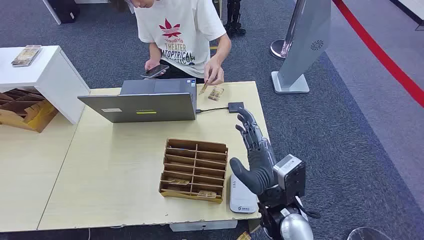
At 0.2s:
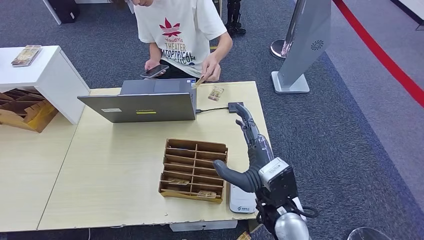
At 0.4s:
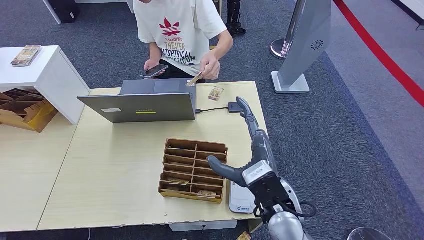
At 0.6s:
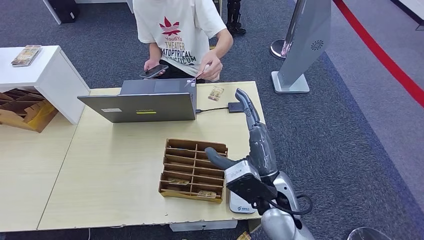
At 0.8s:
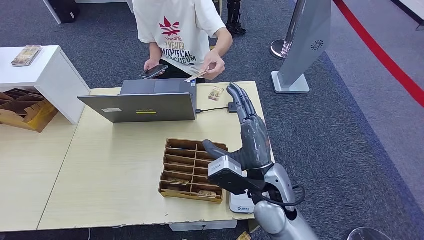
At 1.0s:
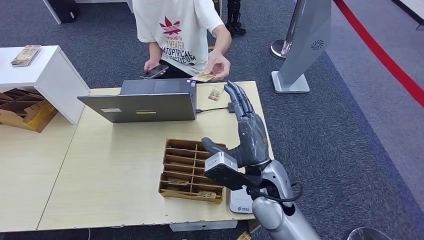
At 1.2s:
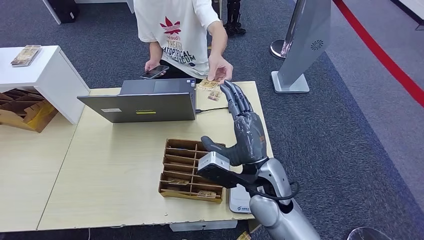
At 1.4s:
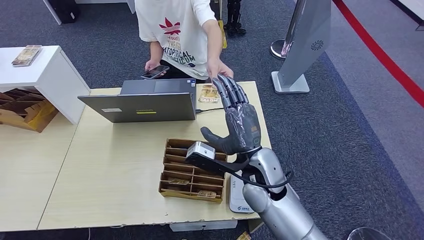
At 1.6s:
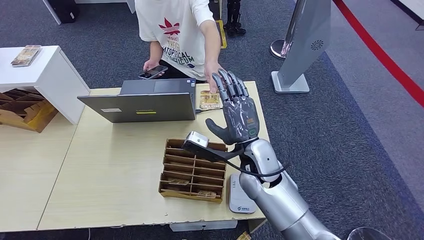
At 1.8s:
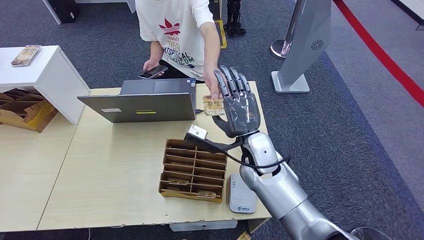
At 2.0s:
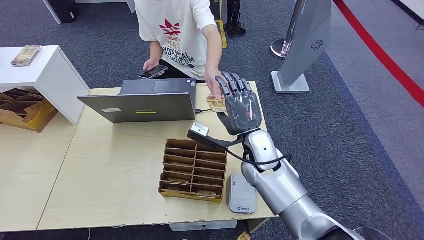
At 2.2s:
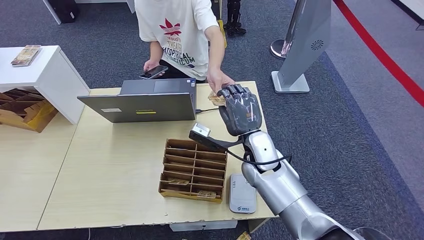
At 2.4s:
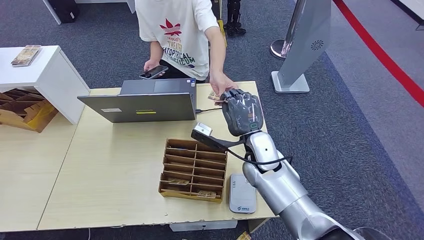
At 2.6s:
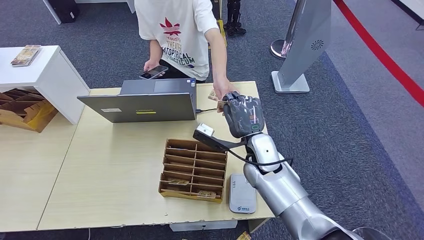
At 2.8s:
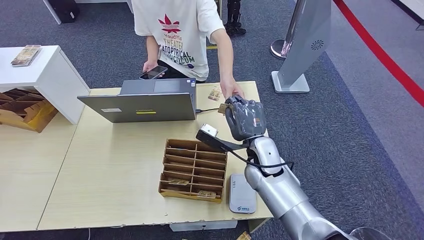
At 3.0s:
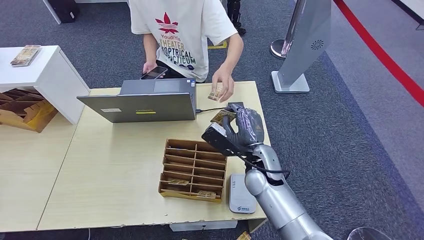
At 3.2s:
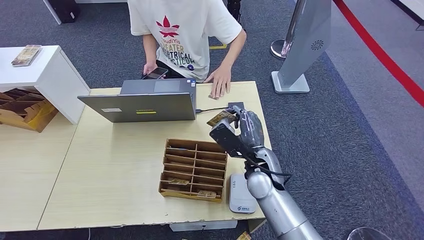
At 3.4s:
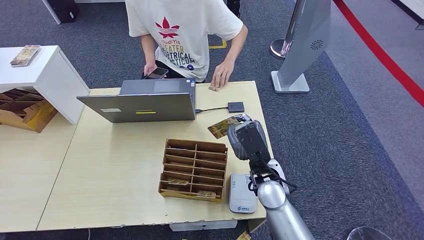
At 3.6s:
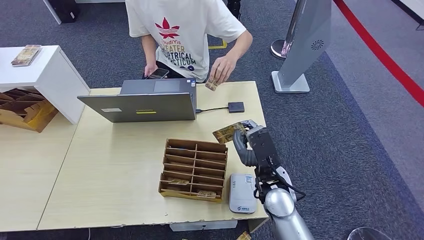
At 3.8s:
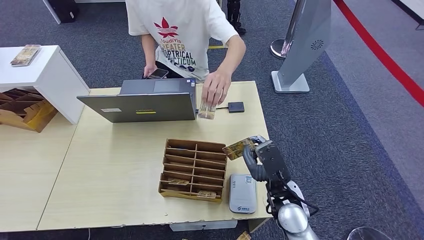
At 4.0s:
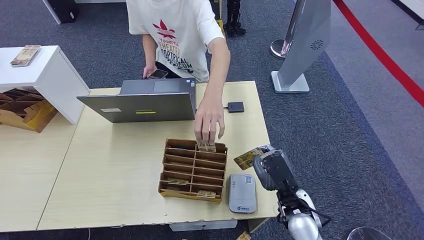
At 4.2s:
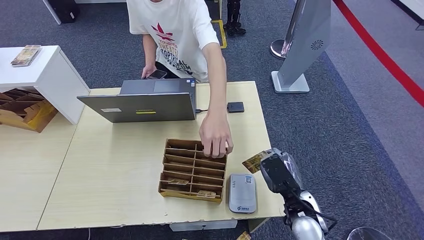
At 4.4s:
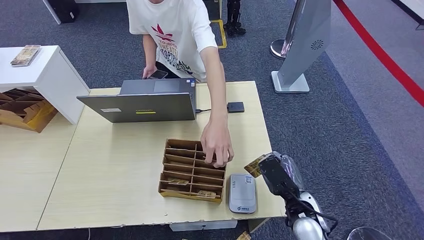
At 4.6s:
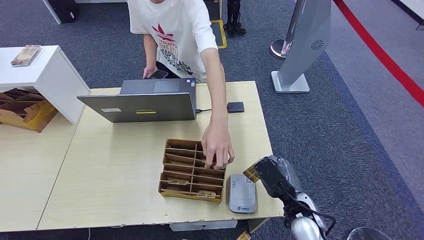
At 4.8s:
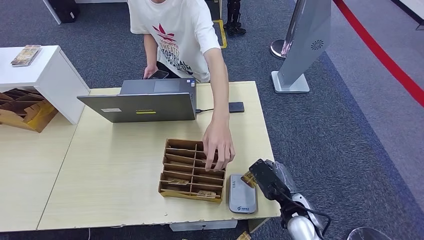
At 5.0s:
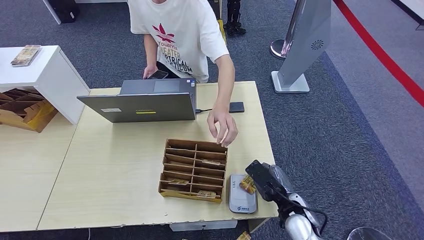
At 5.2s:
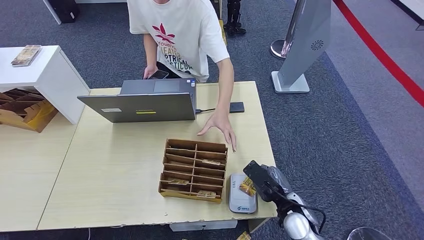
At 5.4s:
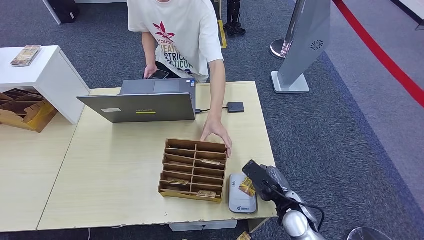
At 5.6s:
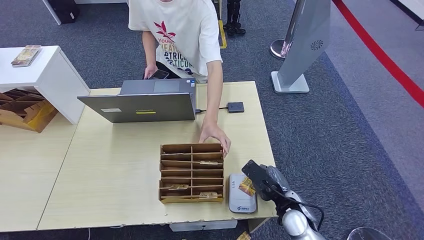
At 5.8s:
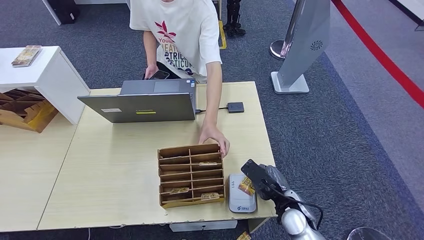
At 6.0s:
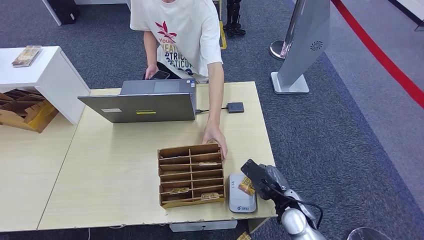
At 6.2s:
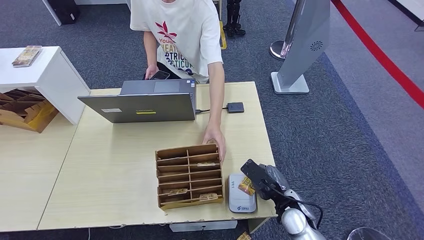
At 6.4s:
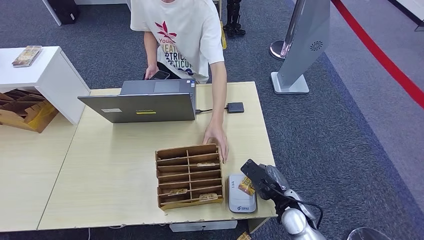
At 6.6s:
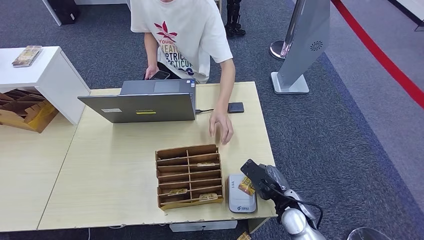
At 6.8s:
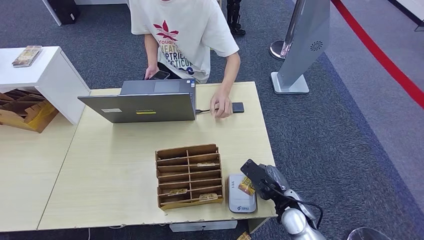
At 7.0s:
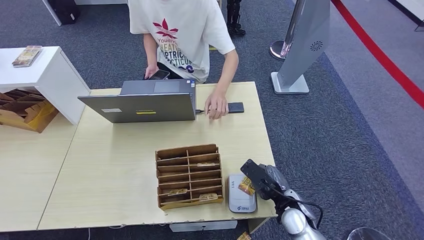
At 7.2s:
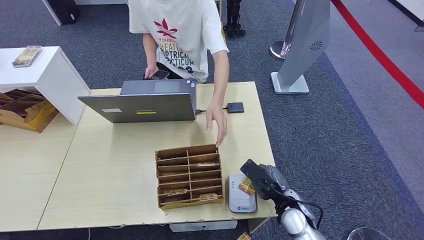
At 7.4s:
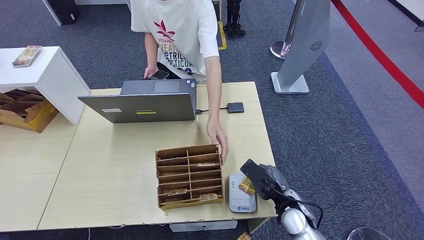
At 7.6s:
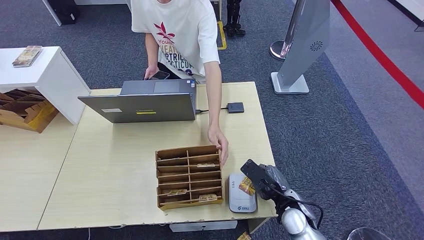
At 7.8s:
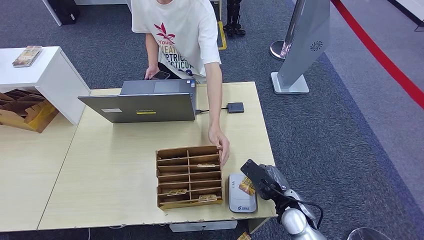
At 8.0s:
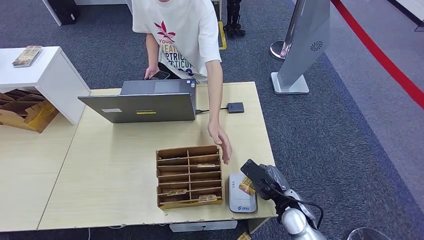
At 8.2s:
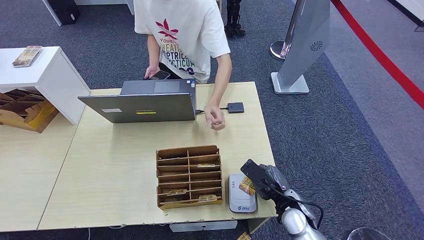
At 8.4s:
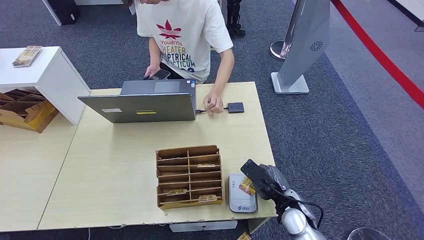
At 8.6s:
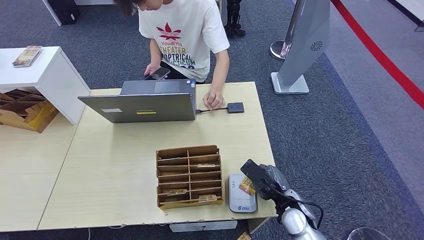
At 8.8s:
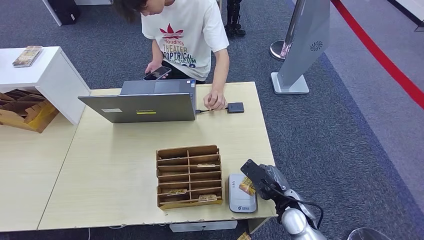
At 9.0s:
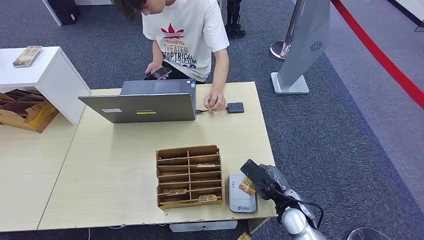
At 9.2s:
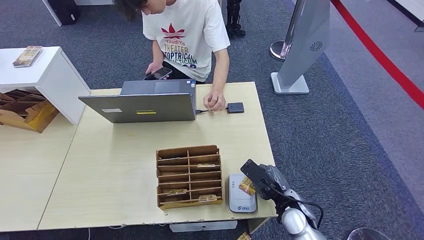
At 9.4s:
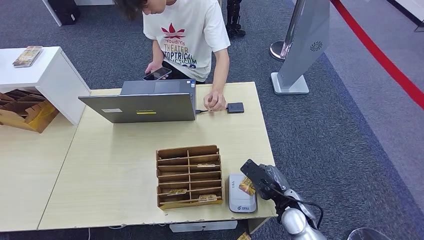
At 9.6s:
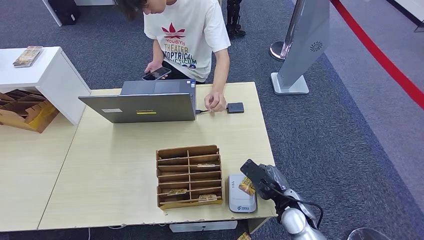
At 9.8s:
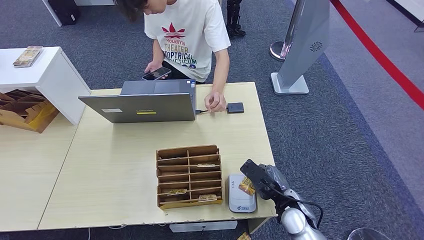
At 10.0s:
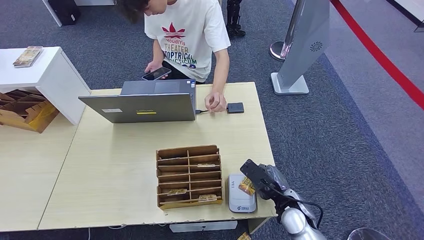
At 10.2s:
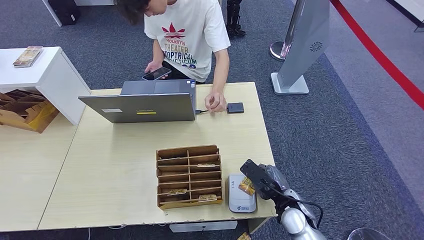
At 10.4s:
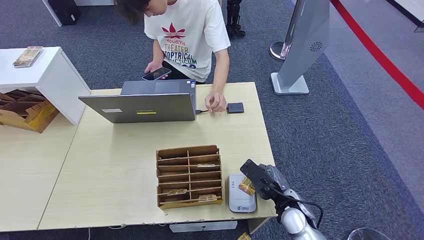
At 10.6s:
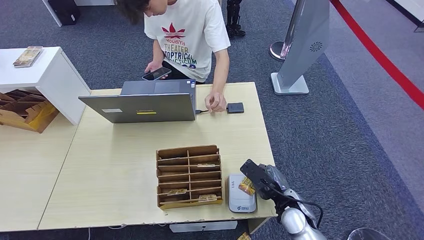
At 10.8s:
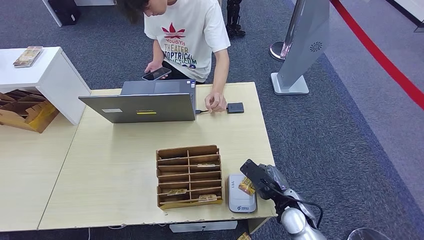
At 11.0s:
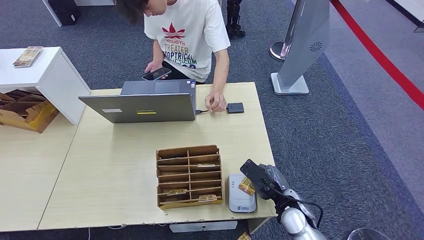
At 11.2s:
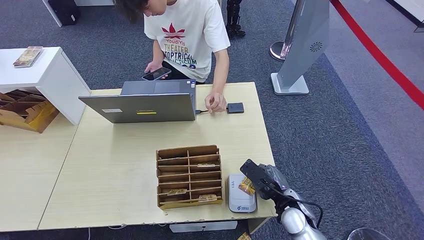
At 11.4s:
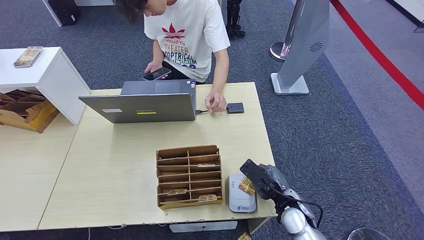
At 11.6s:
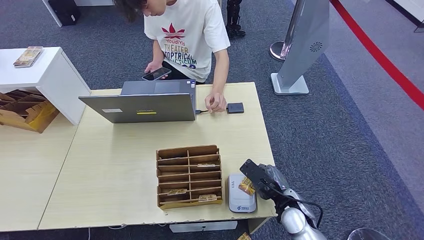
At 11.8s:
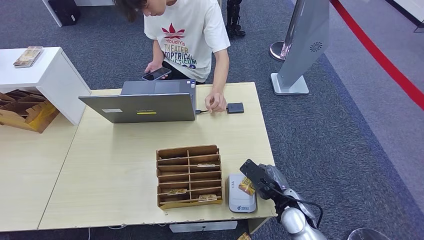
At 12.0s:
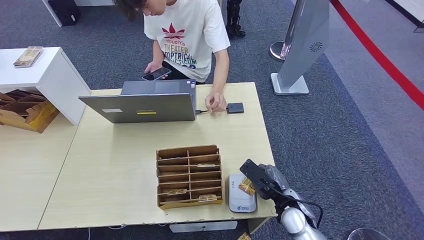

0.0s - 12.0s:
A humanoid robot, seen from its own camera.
Step, 0.0s - 2.2s: Take the ID card from the person's hand.
Step, 2.4s - 6.4s: Place the ID card on the card reader.
1.6s - 3.0s: The right hand ends up roughly 5 cm from where it was.
3.0s - 4.4s: The right hand goes approximately 15 cm backward and to the right.
4.4s - 6.0s: The right hand moves roughly 5 cm.
6.0s - 12.0s: Neither hand changes place.

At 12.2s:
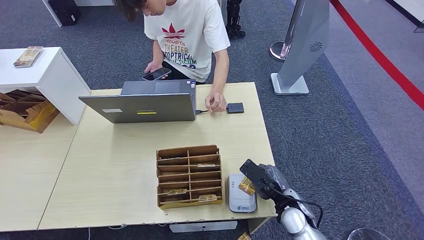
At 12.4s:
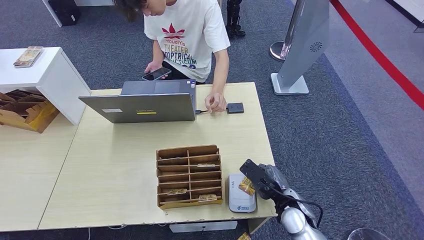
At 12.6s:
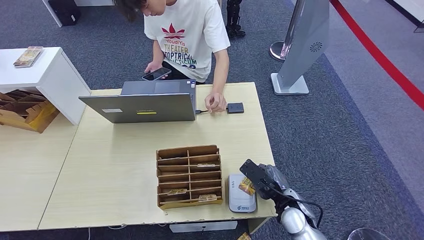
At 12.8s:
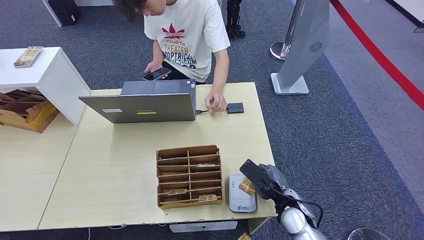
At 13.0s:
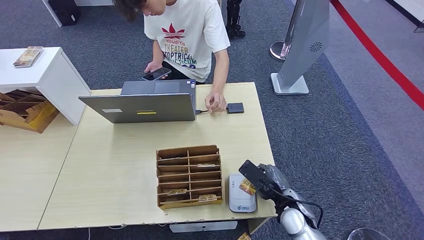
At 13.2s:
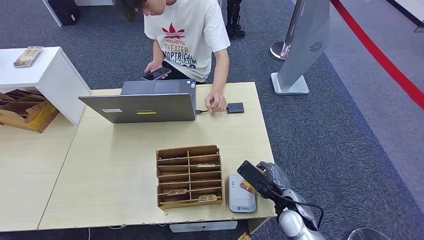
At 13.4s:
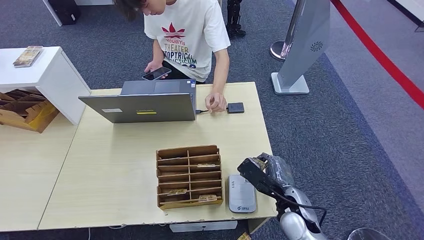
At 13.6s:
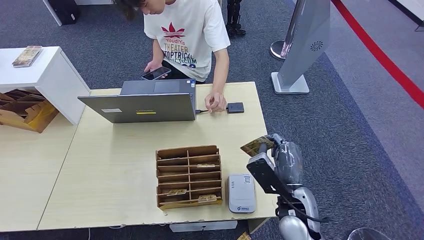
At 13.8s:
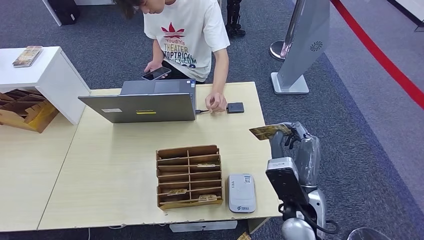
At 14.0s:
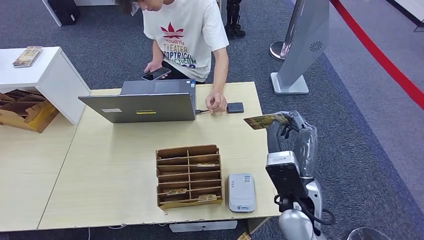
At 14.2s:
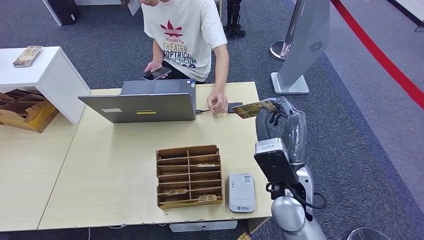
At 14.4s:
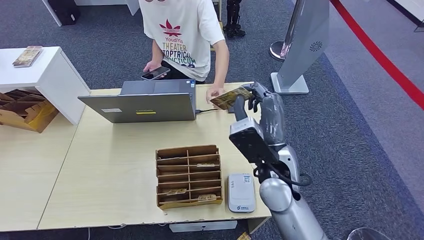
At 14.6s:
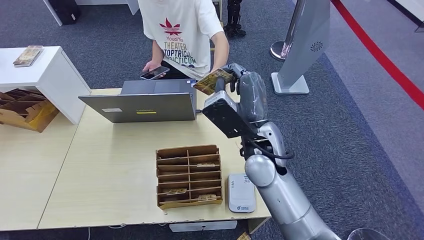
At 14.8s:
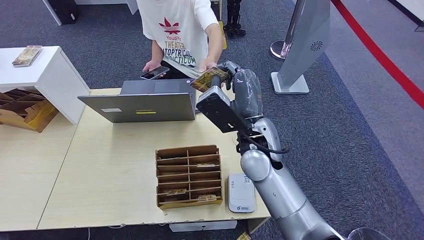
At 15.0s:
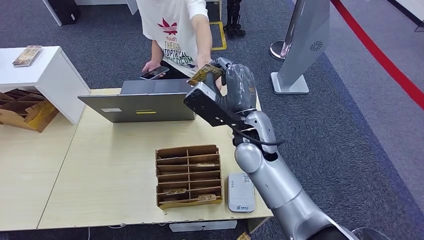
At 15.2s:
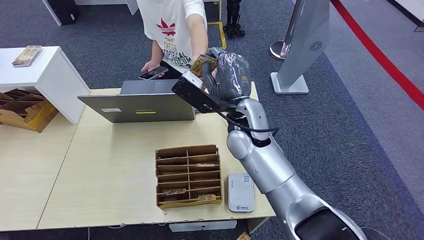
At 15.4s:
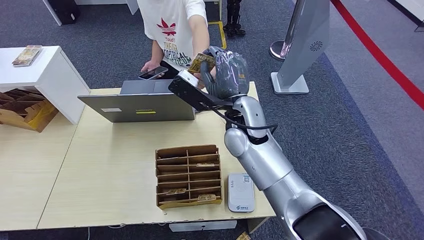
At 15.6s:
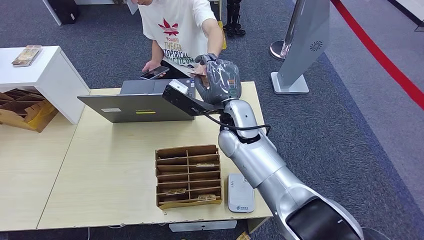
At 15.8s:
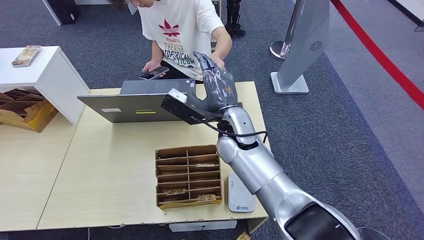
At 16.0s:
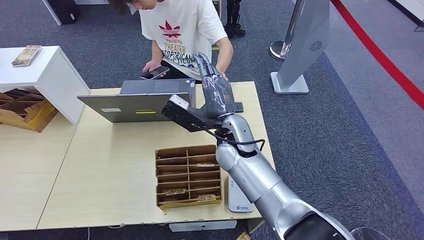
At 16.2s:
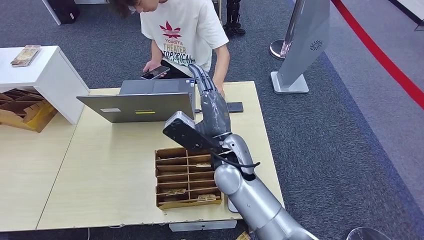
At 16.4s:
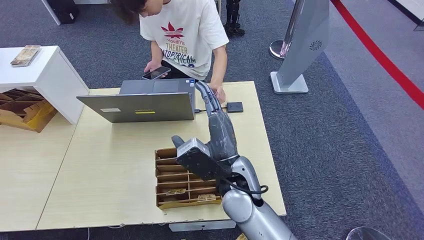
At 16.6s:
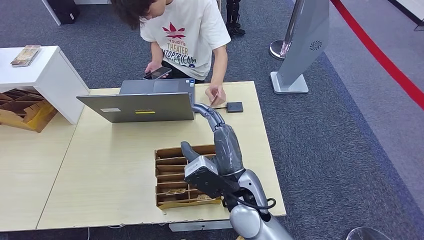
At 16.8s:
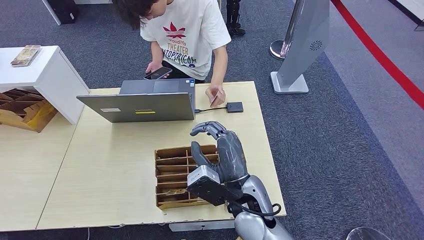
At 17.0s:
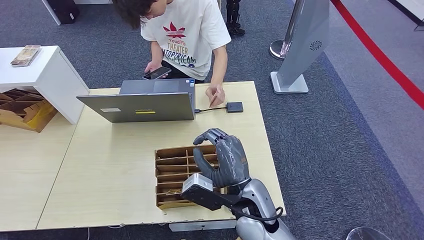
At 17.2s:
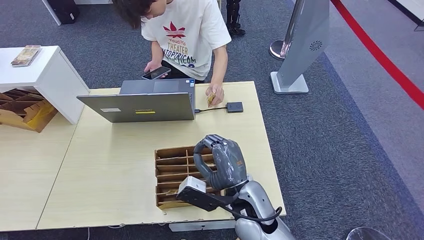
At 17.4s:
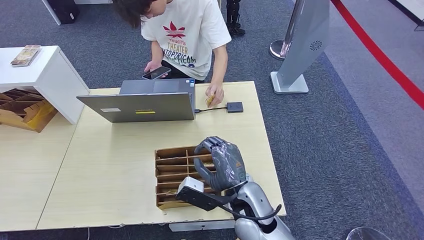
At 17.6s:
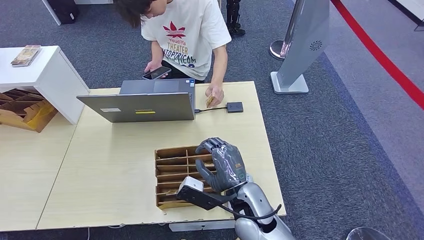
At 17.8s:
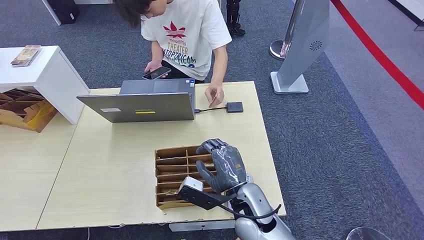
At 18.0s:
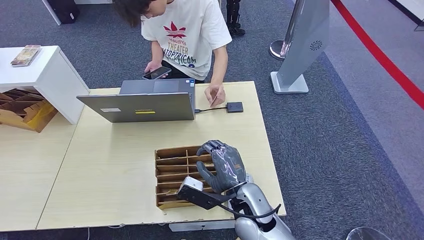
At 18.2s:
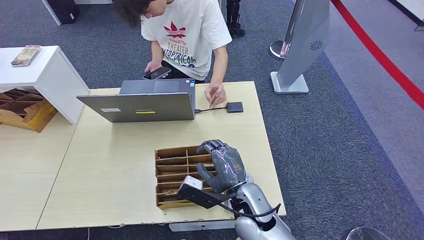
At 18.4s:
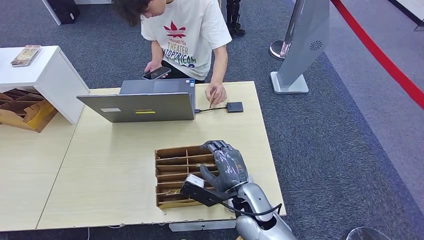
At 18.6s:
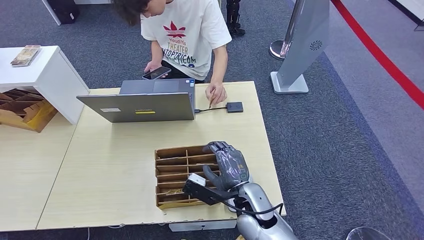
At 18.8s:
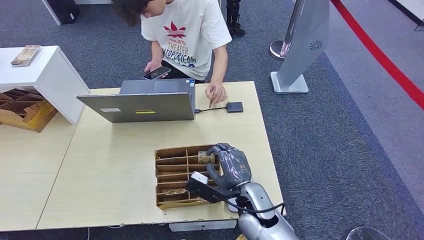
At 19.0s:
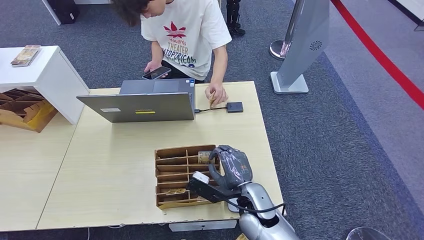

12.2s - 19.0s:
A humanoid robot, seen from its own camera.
Step, 12.2s - 16.4s: Hand the ID card to the person.
12.2s - 13.6s: The right hand shifts some 10 cm upward.
13.6s - 15.0s: The right hand goes approximately 20 cm upward, forward and to the left.
15.0s - 16.2s: The right hand shifts by about 5 cm.
16.2s - 17.6s: The right hand goes some 10 cm downward and backward.
17.6s - 19.0s: The hands make only small movements.
